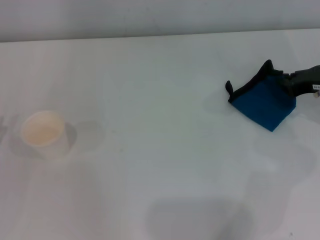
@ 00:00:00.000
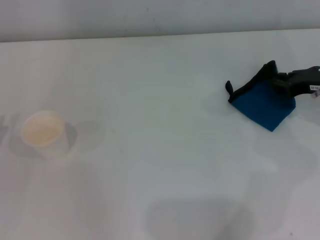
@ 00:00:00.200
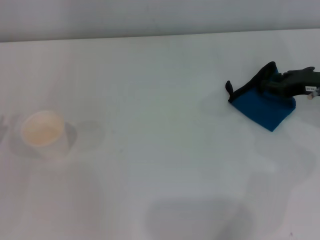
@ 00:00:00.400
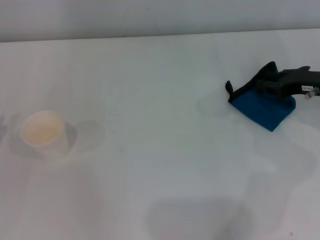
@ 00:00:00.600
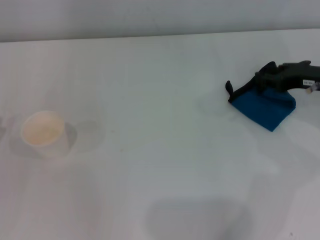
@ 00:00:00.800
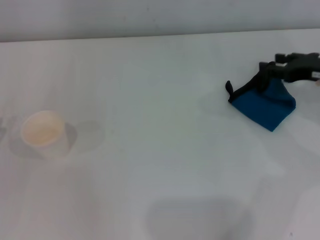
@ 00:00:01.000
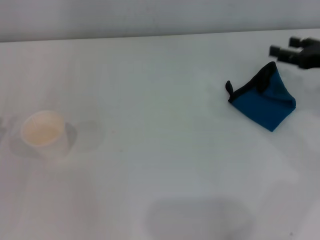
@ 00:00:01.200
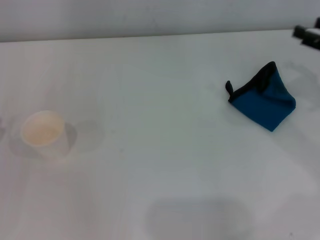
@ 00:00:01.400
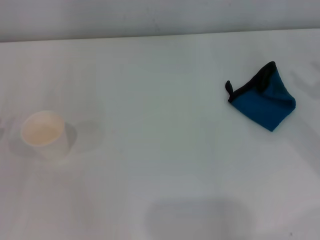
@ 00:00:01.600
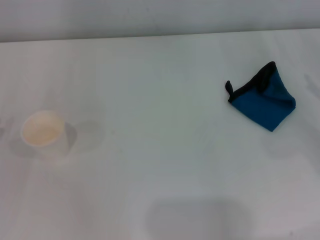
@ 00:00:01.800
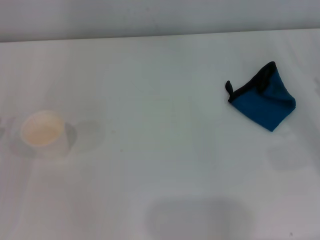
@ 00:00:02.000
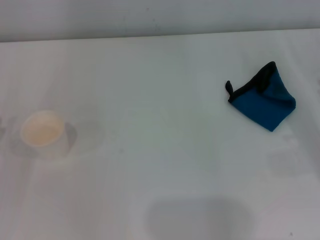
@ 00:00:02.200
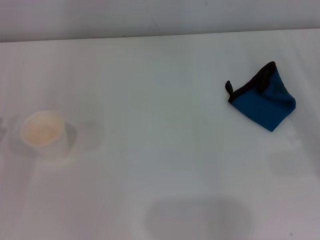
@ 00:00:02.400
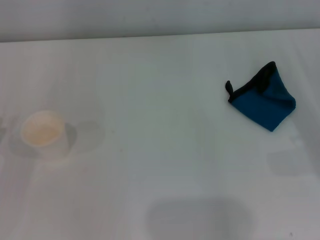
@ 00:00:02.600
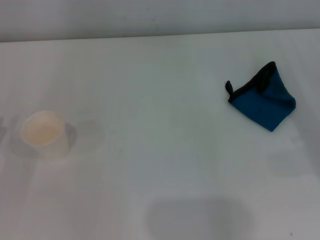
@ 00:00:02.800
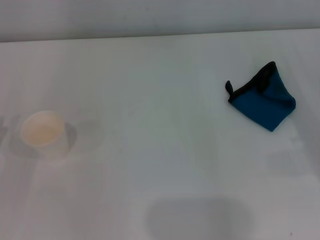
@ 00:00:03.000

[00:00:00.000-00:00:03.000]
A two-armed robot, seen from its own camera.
00:00:00.000 to 00:00:01.600: The right gripper heads to the right and backward, covering about 10 cm, and opens up.
